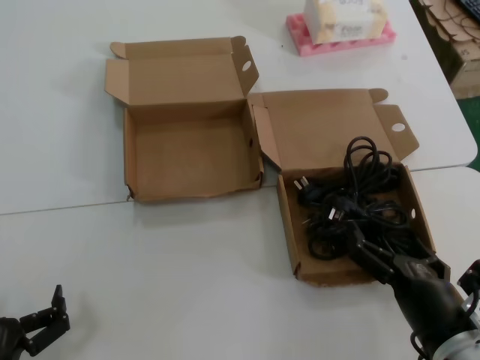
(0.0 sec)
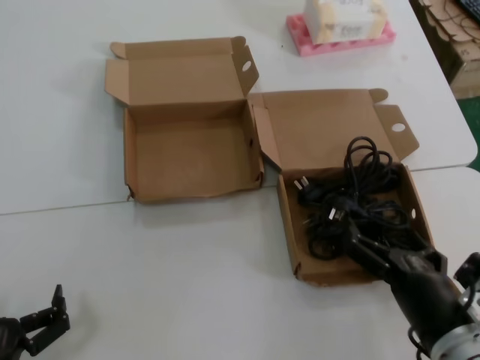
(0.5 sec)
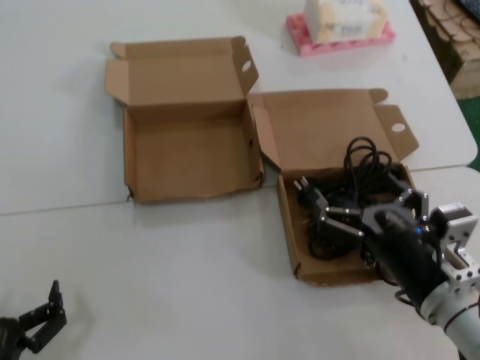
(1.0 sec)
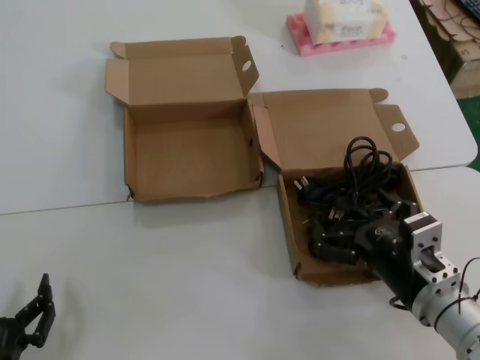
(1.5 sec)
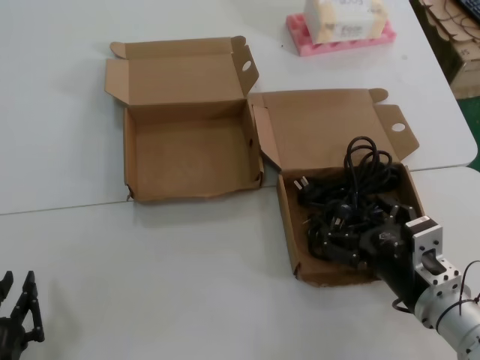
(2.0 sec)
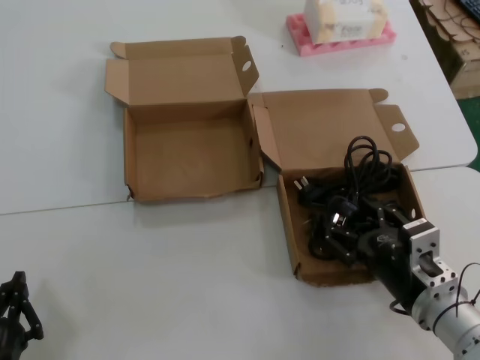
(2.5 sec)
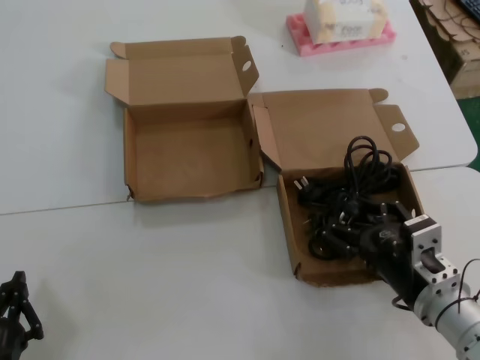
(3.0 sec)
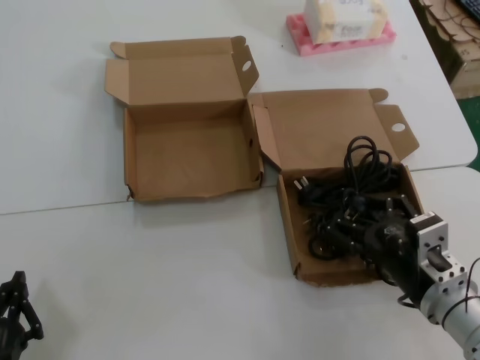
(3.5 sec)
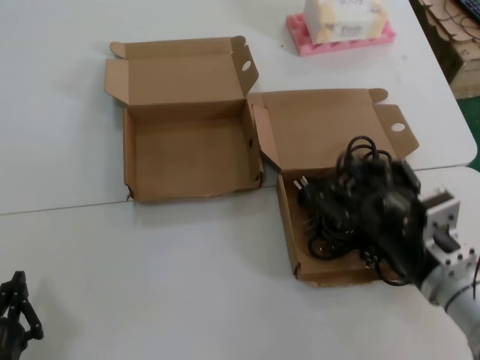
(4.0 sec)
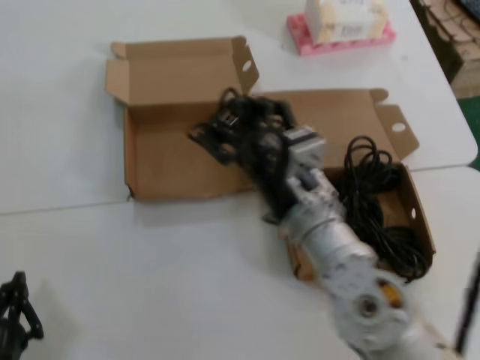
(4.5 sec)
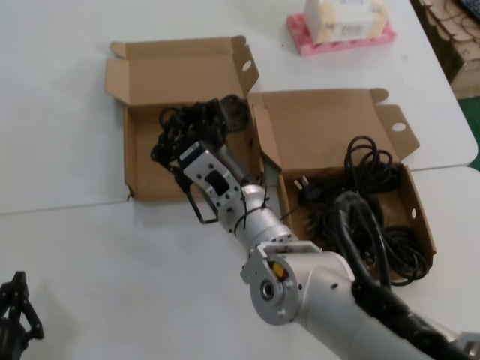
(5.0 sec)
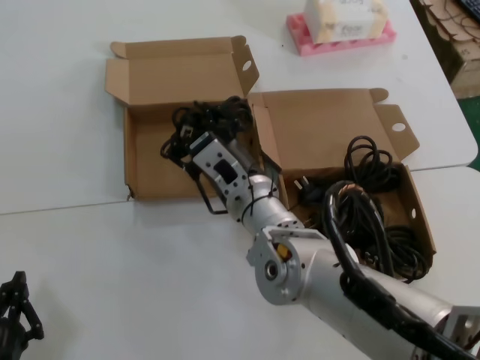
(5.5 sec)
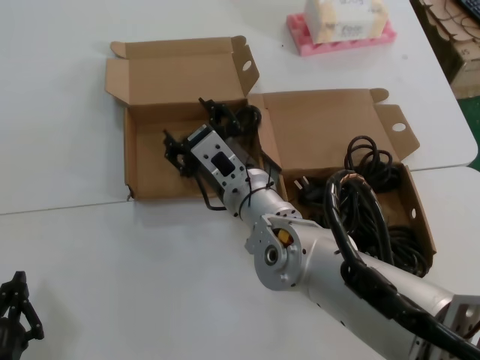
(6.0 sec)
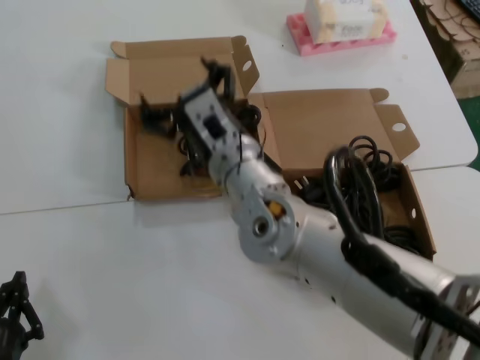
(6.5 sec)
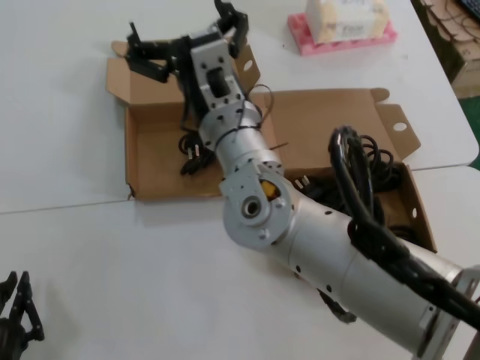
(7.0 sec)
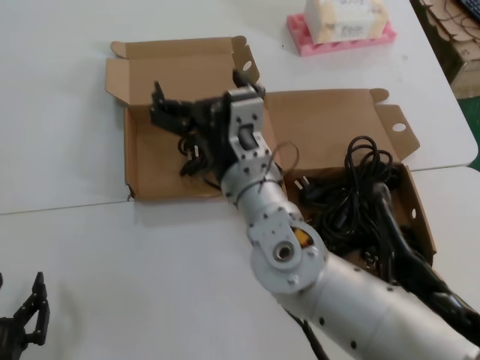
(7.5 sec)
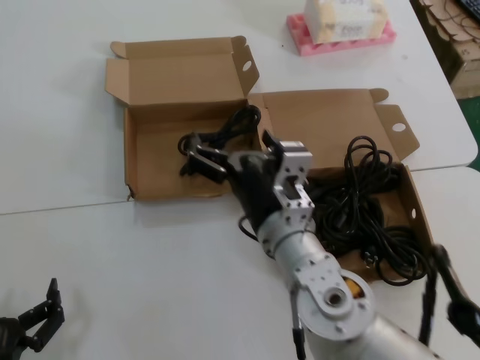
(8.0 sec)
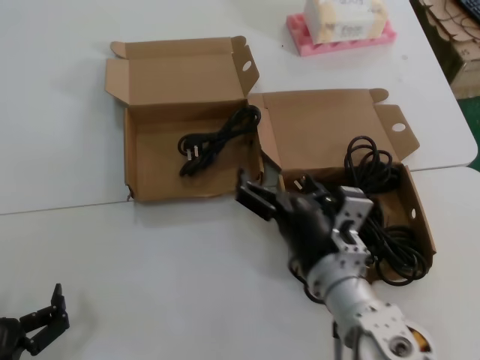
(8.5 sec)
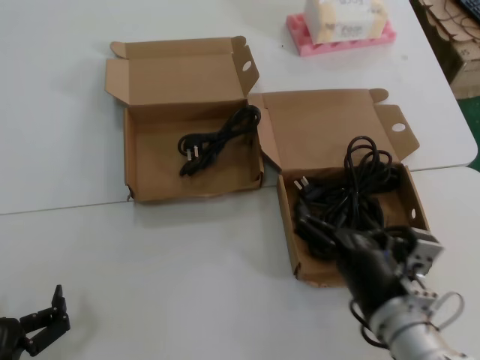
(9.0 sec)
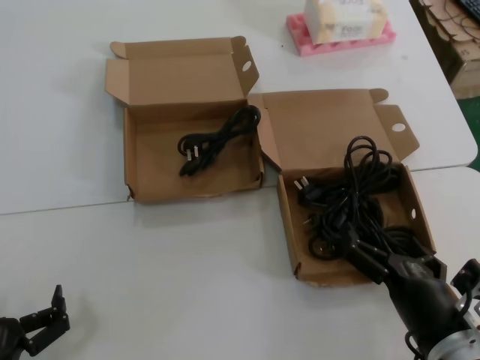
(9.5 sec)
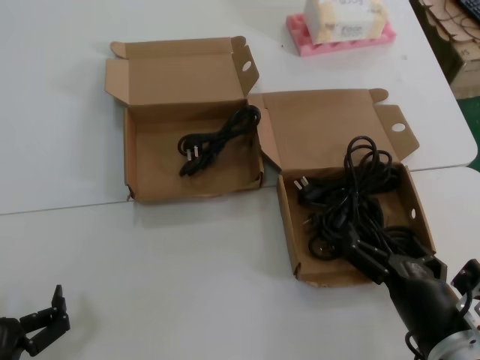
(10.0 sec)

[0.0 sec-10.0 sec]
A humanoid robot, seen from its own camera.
Task of the whole recording: Pick up the power cord from the box containing it and place it in another box.
Step, 0.0 sec to 2.5 sec: Grasp the data cable.
Step, 3.0 sec to 6.0 sec: Place the data cable in the another box.
0.0 sec to 2.0 sec: The right hand shifts about 5 cm forward.
2.0 sec to 4.0 sec: The right hand moves approximately 5 cm.
4.0 sec to 6.0 sec: The right hand heads to the left and forward, covering roughly 25 cm.
6.0 sec to 8.0 sec: The right hand shifts roughly 5 cm backward, and moves about 10 cm upward and comes back.
8.0 sec to 10.0 sec: The right hand goes some 25 cm to the right, backward and downward.
